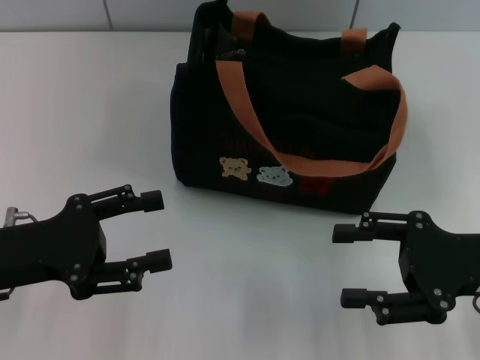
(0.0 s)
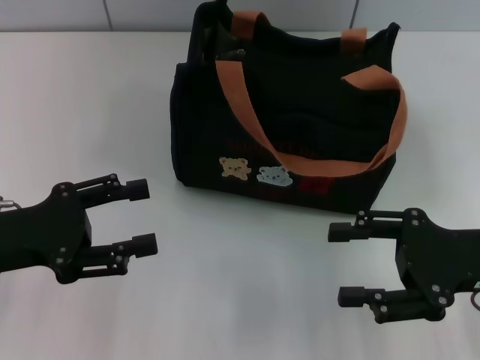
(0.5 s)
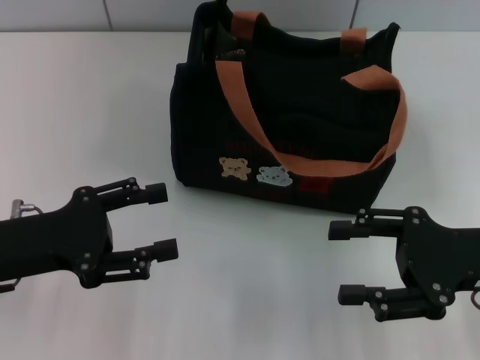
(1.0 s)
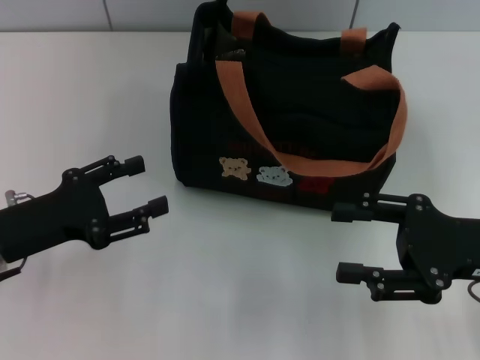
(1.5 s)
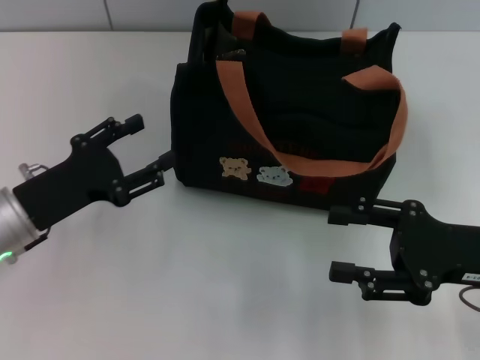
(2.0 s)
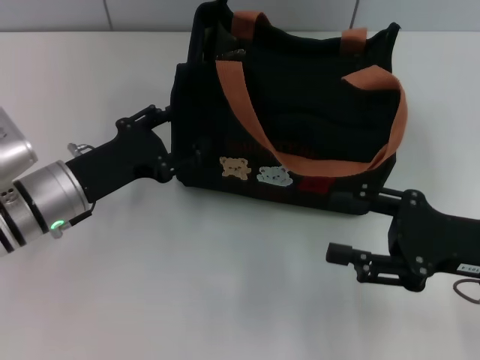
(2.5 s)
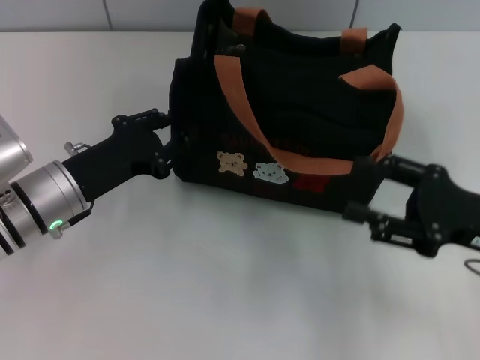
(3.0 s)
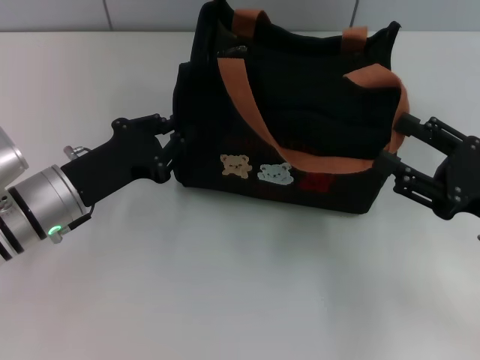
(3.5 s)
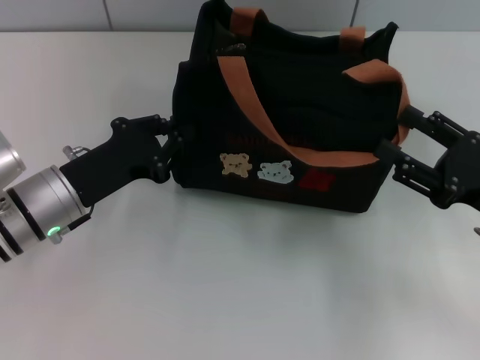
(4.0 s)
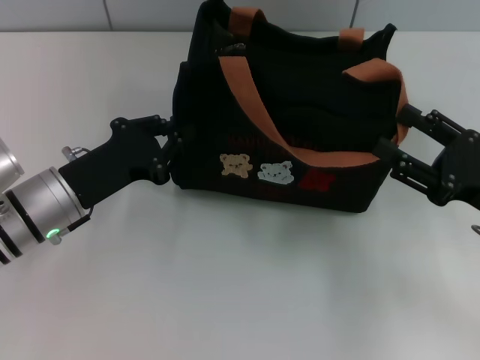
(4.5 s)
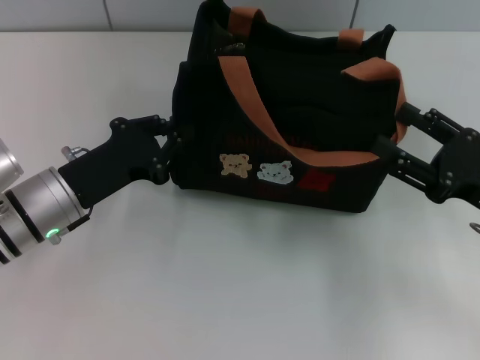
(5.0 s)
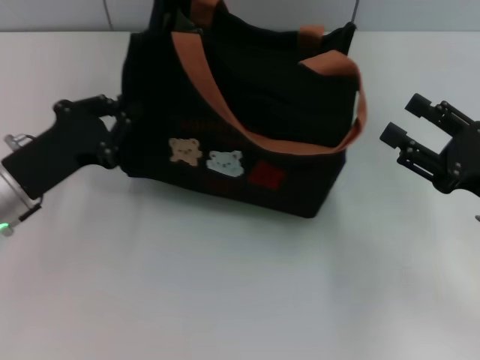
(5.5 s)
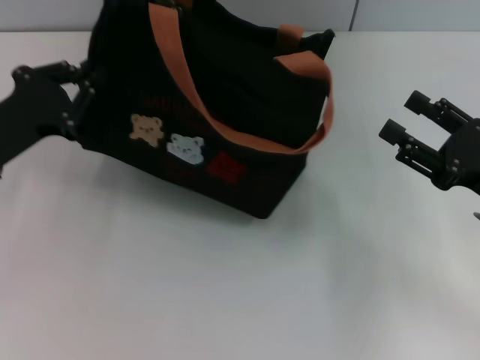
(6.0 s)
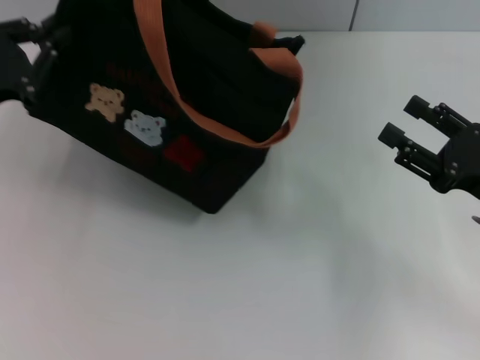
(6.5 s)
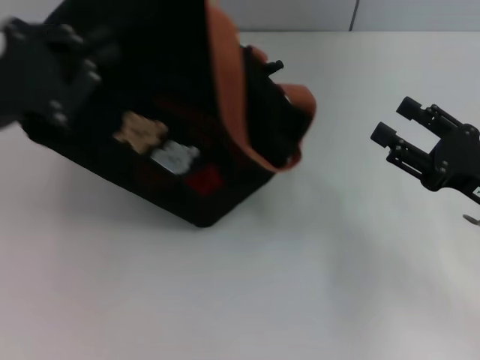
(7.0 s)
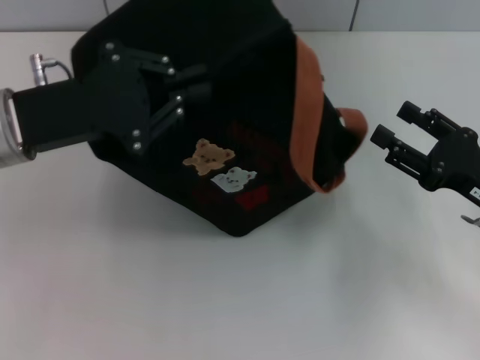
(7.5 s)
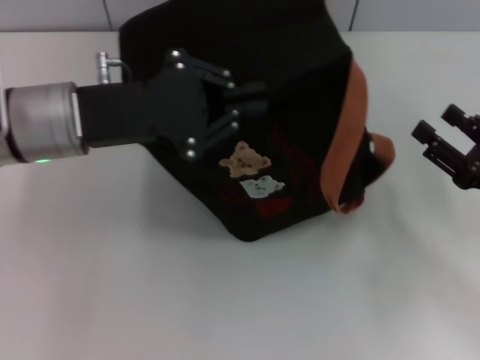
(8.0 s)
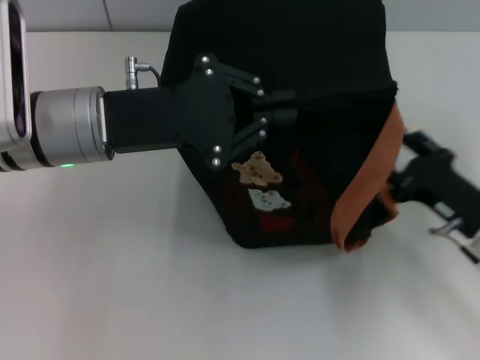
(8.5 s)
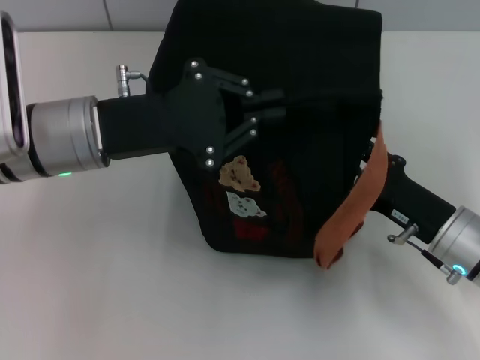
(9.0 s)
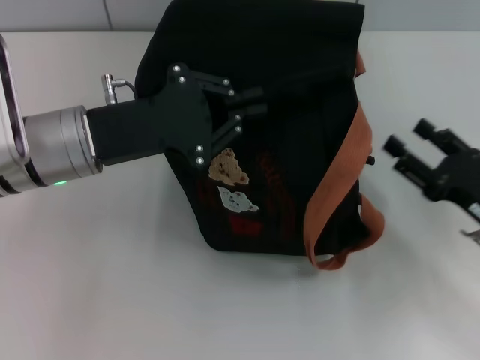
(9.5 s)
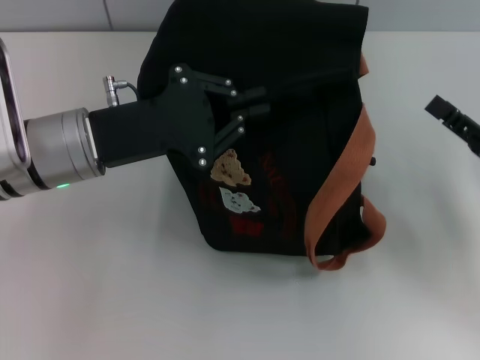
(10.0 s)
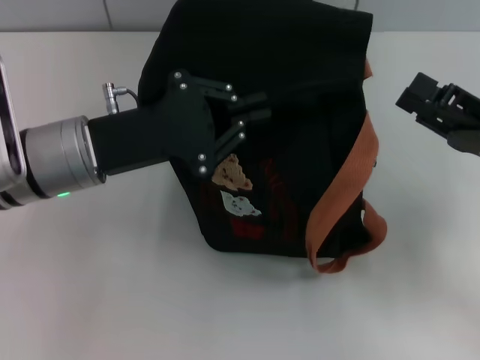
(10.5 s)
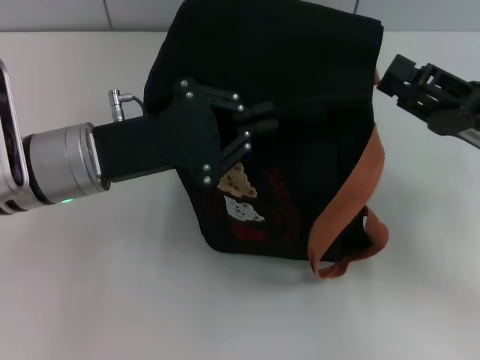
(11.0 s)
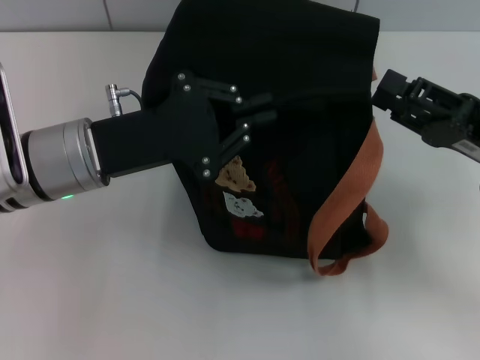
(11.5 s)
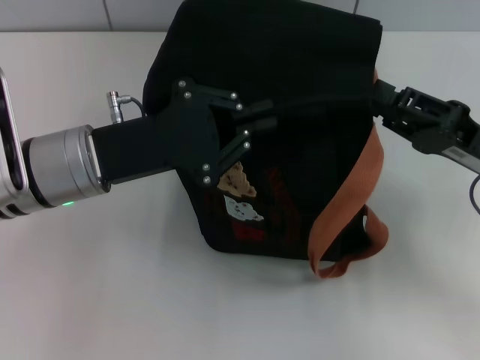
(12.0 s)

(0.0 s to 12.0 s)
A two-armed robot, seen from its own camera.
0.0 s - 2.0 s: The left gripper changes place by roughly 5 cm.
2.0 s - 4.0 s: The left gripper closes its fingers.
4.0 s - 6.0 s: The left gripper is displaced to the left by roughly 5 cm.
6.0 s - 8.0 s: The left gripper heads to the right and upward, covering approximately 10 cm.
8.0 s - 10.0 s: The right gripper reaches about 10 cm to the left, then returns.
10.0 s - 12.0 s: The right gripper shifts by about 5 cm, and closes its fingers.

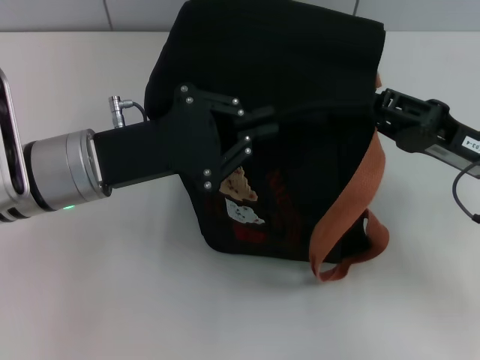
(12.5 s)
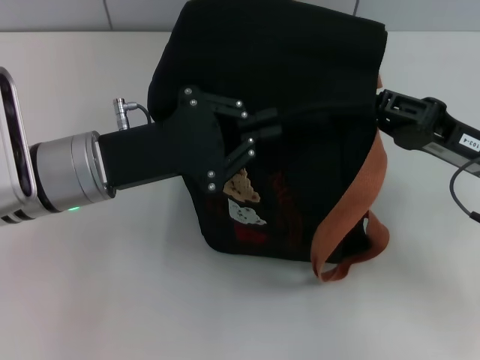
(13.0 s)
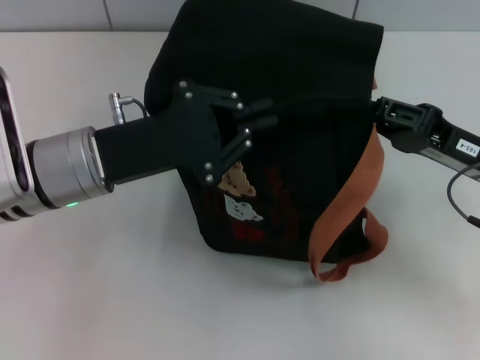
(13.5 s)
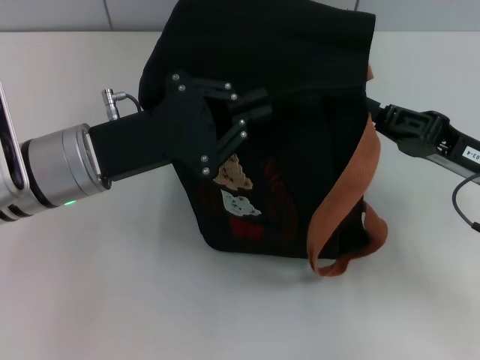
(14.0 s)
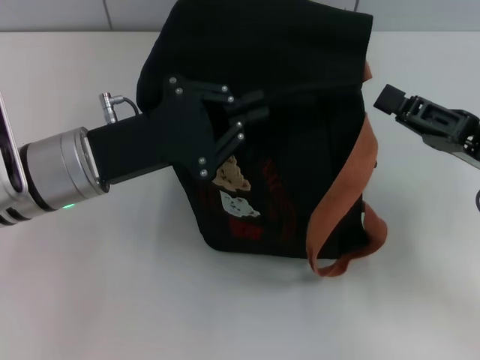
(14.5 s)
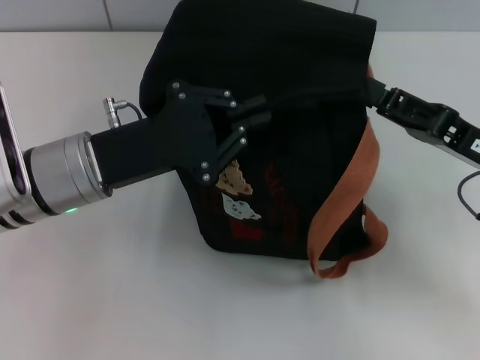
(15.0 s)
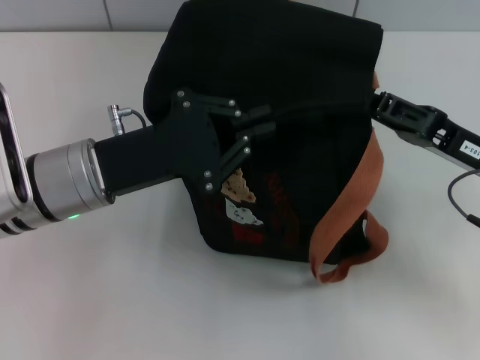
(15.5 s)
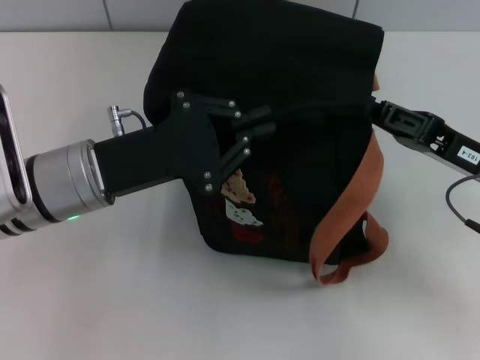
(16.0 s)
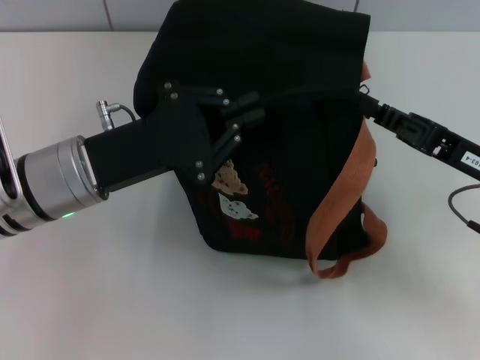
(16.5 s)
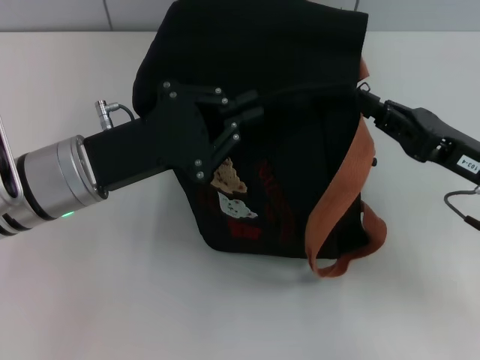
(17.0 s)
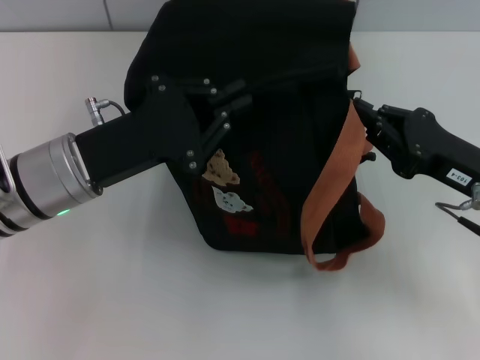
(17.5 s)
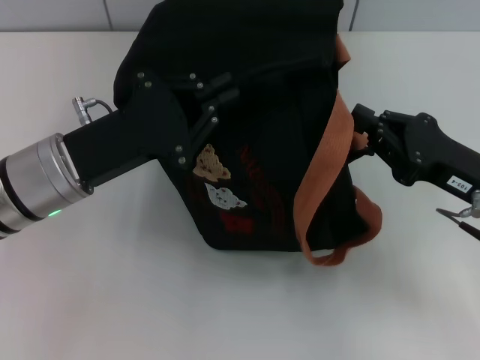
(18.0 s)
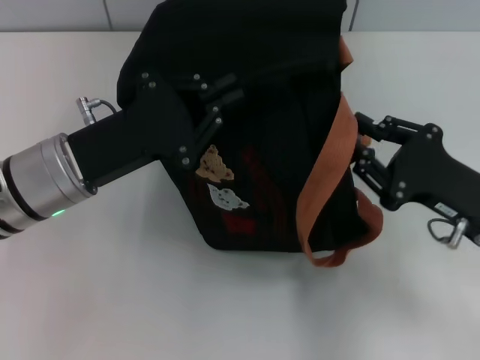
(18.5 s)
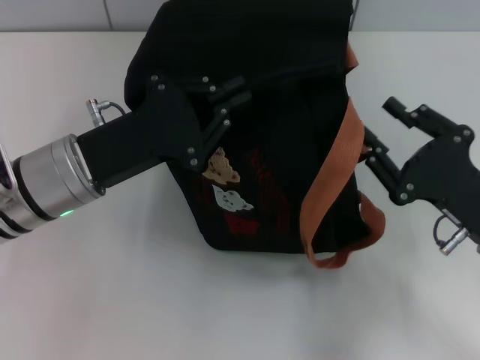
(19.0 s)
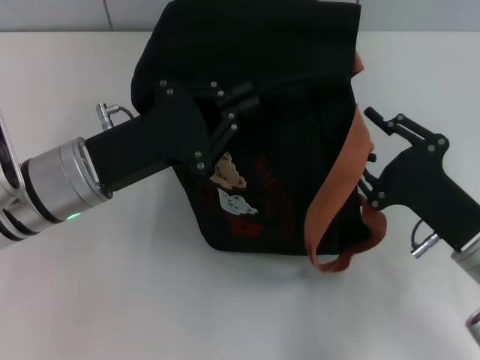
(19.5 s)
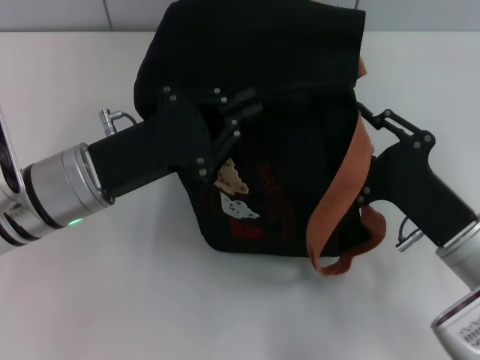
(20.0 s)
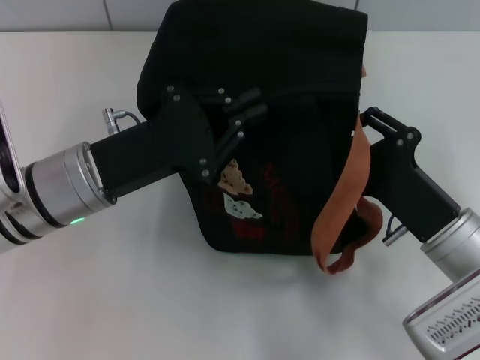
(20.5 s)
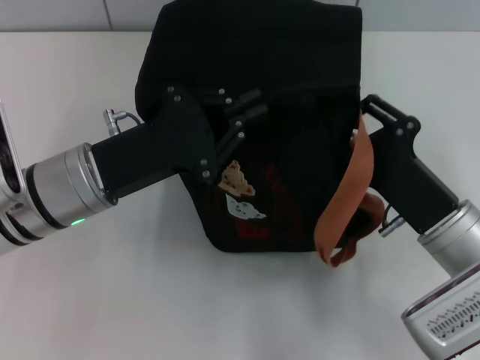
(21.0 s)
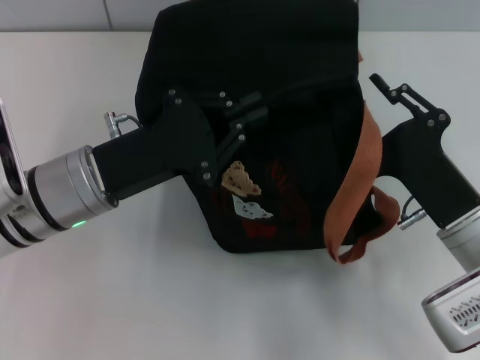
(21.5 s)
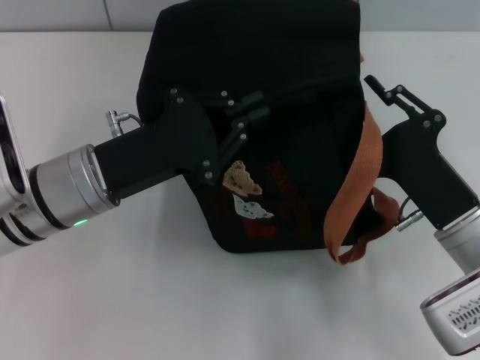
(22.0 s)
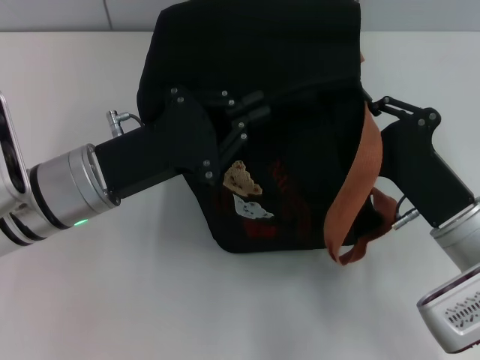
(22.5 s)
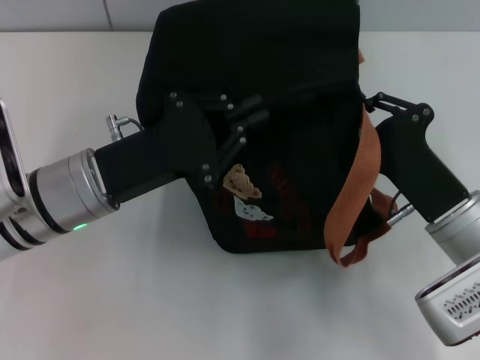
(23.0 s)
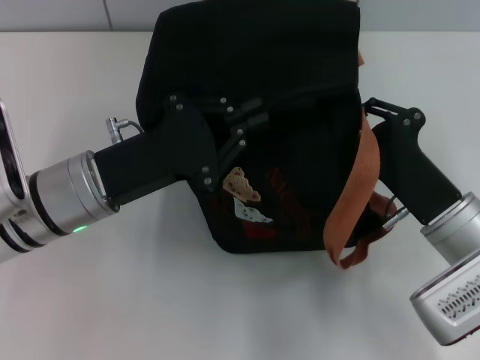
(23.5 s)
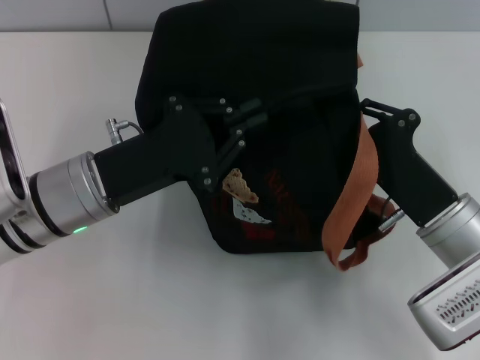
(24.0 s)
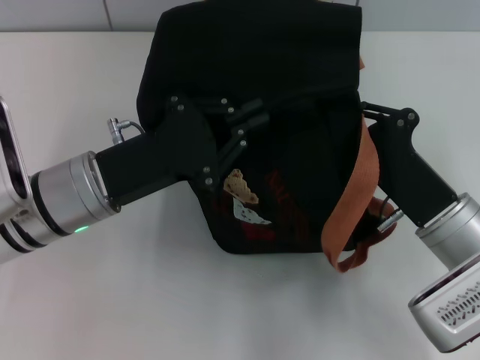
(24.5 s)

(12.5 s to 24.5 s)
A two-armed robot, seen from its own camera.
12.5 s - 14.5 s: The right gripper closes.
14.5 s - 16.5 s: The right gripper opens, then closes once more.
18.5 s - 20.5 s: The right gripper is displaced to the left by approximately 5 cm, and opens up.
20.5 s - 22.5 s: The right gripper closes up.
22.5 s - 24.5 s: Neither gripper changes place.

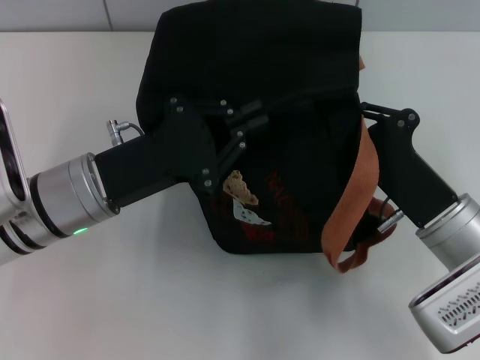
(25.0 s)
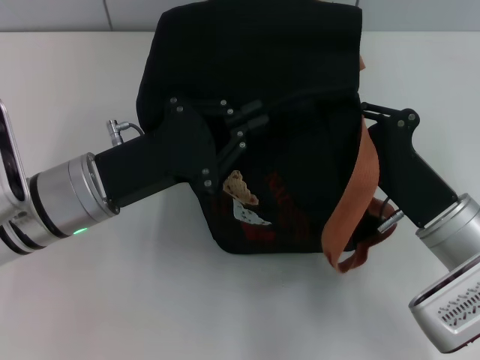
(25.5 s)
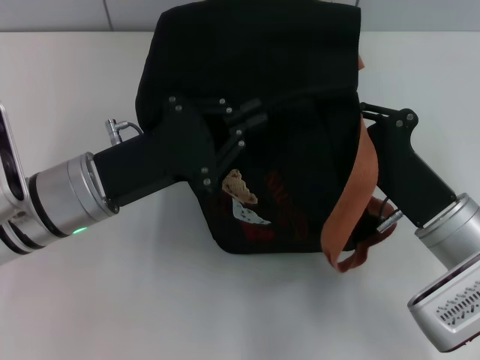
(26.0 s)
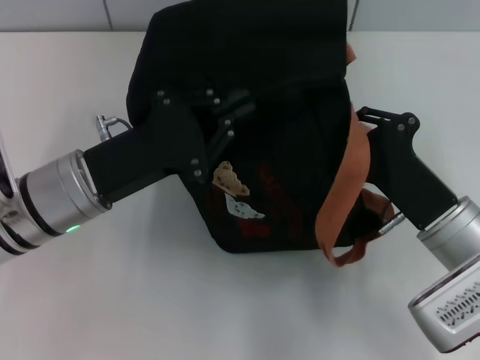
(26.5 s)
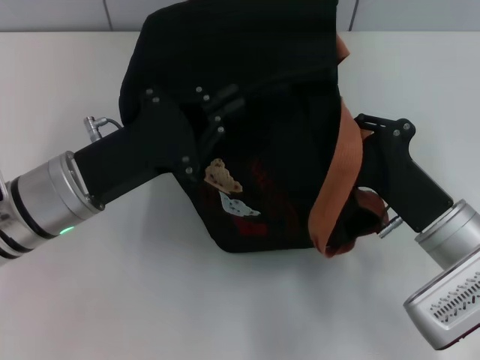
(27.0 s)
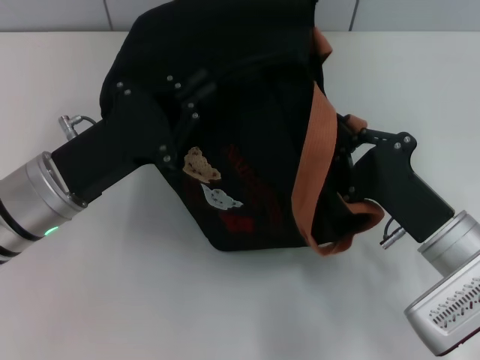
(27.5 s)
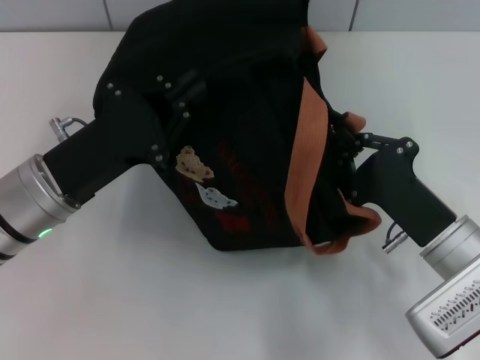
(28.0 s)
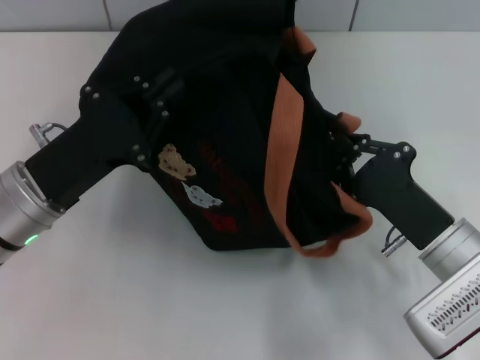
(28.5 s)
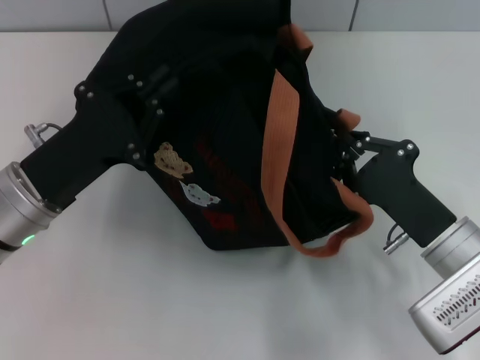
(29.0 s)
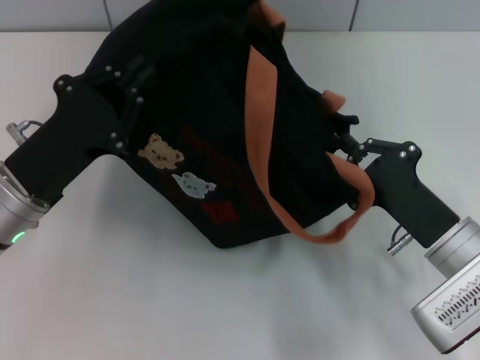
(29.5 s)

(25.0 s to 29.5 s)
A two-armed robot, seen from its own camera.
25.0 s - 27.0 s: The grippers move only a little.
